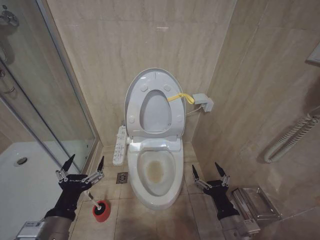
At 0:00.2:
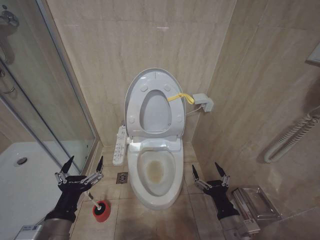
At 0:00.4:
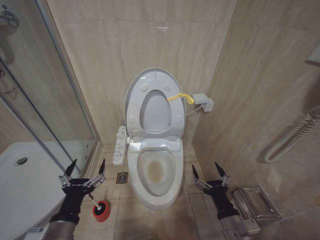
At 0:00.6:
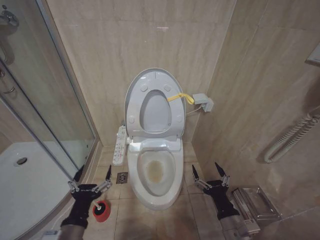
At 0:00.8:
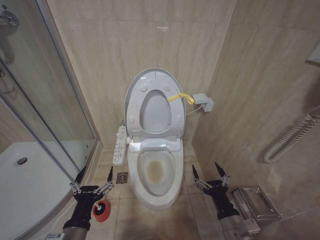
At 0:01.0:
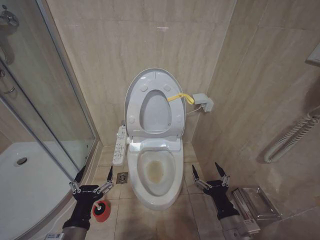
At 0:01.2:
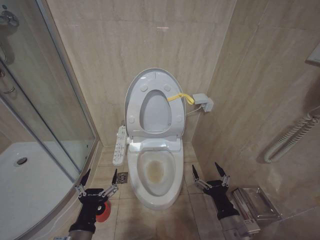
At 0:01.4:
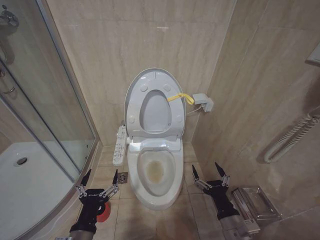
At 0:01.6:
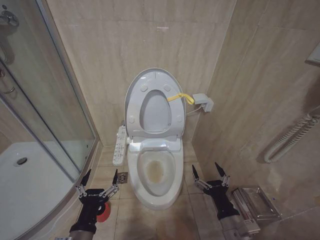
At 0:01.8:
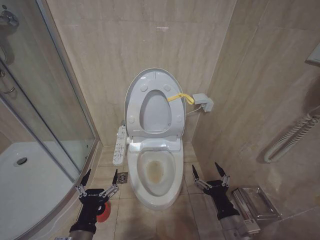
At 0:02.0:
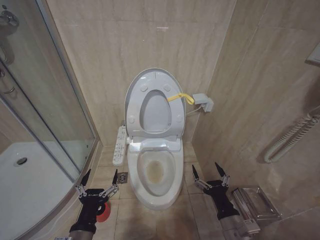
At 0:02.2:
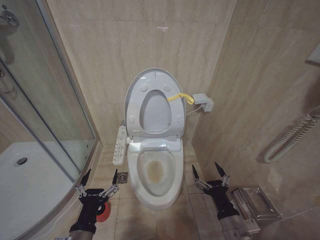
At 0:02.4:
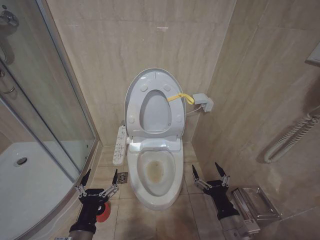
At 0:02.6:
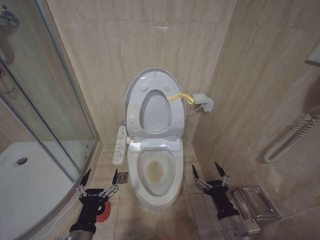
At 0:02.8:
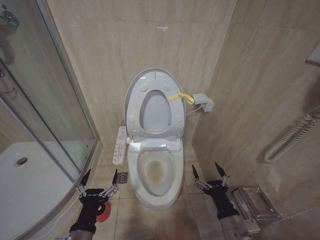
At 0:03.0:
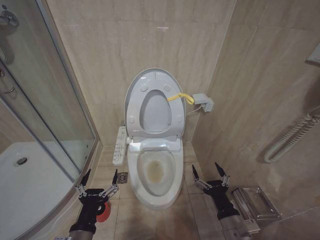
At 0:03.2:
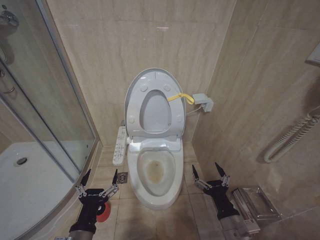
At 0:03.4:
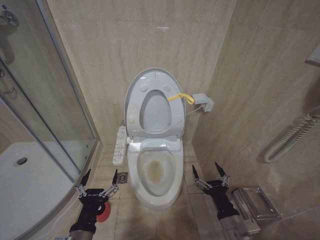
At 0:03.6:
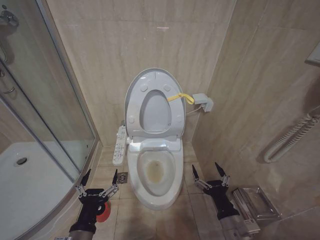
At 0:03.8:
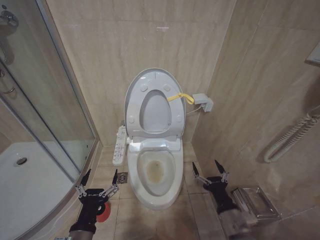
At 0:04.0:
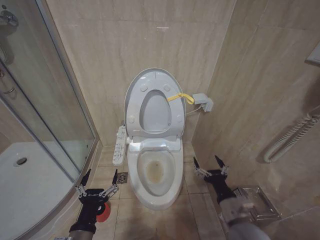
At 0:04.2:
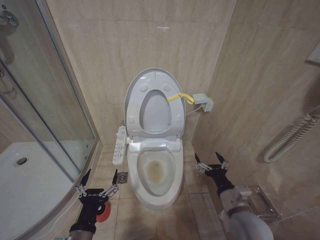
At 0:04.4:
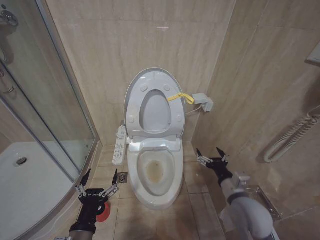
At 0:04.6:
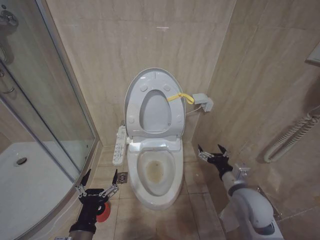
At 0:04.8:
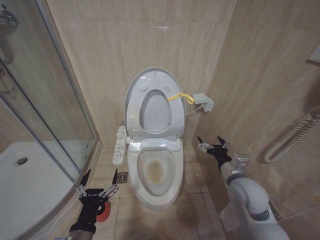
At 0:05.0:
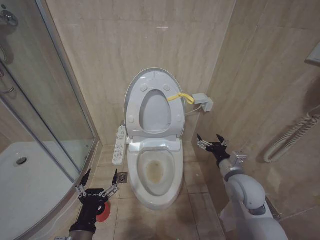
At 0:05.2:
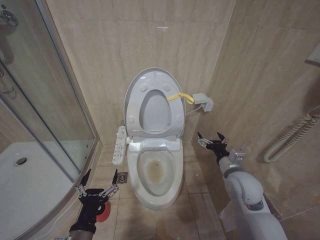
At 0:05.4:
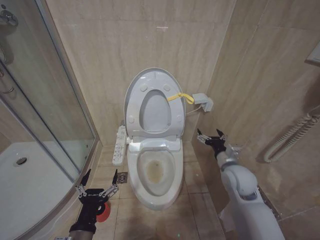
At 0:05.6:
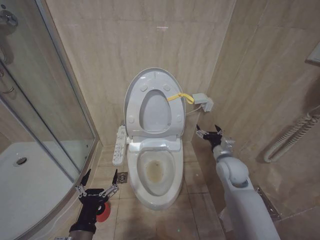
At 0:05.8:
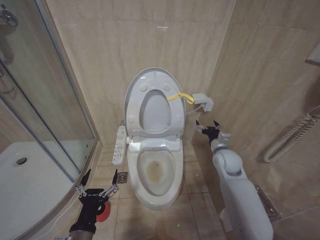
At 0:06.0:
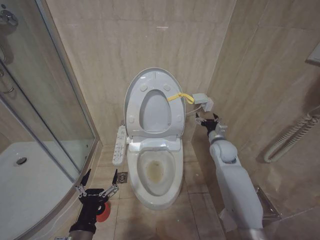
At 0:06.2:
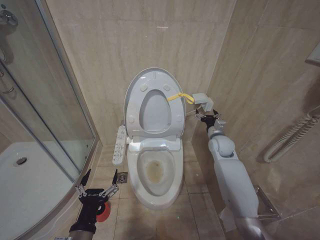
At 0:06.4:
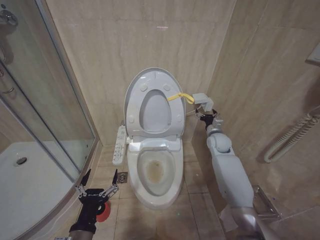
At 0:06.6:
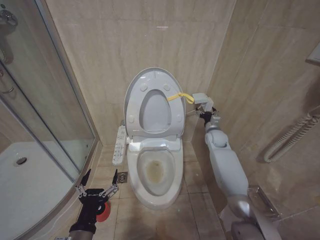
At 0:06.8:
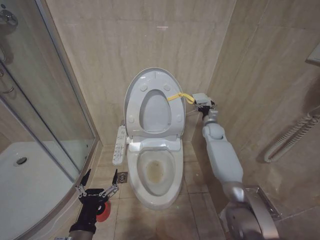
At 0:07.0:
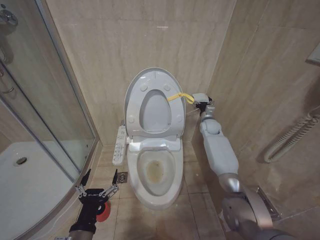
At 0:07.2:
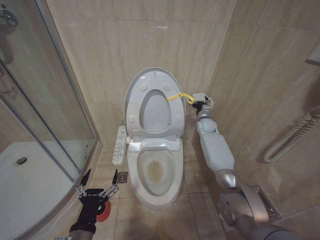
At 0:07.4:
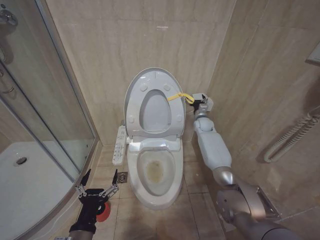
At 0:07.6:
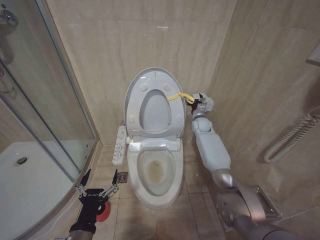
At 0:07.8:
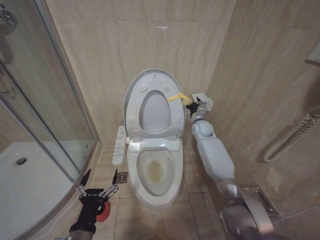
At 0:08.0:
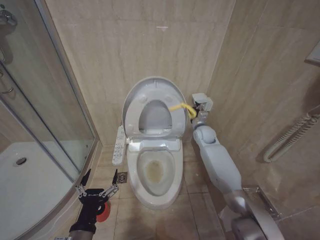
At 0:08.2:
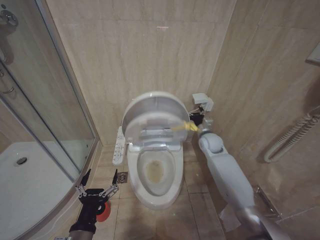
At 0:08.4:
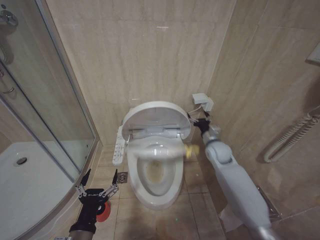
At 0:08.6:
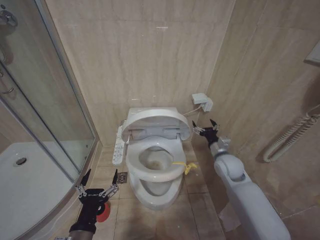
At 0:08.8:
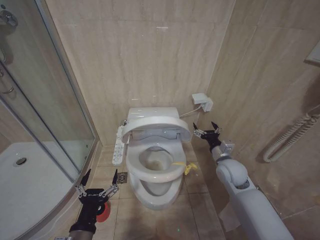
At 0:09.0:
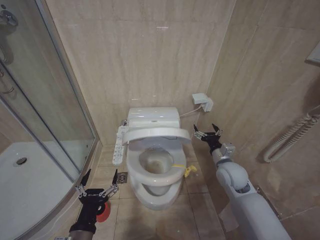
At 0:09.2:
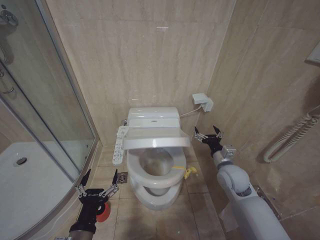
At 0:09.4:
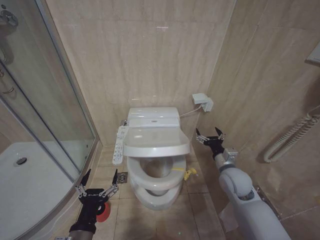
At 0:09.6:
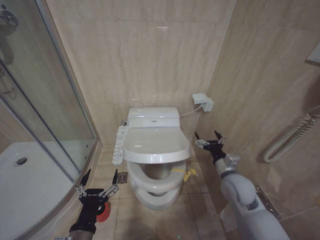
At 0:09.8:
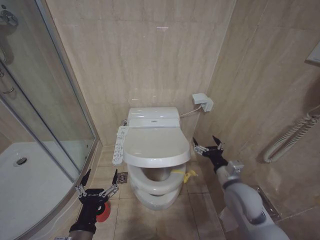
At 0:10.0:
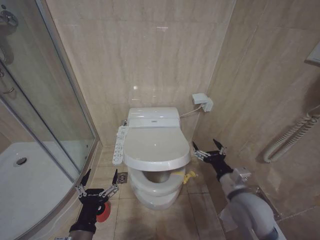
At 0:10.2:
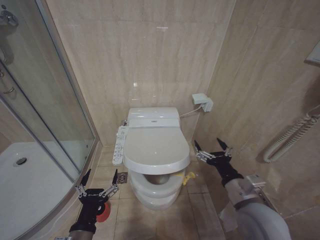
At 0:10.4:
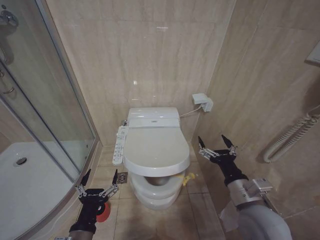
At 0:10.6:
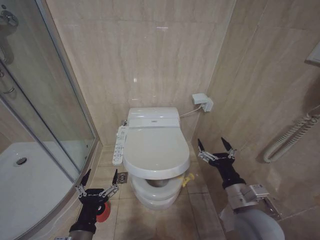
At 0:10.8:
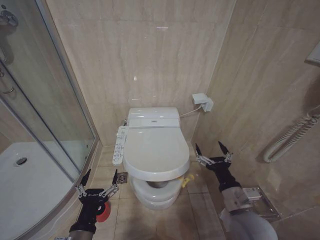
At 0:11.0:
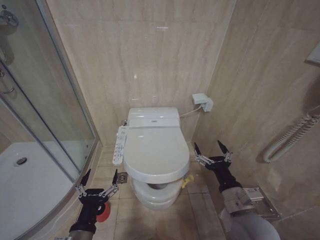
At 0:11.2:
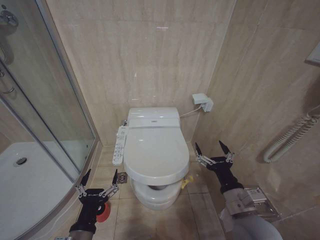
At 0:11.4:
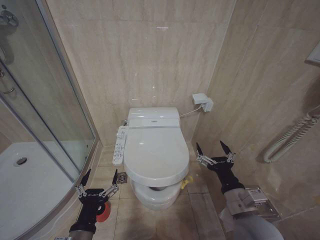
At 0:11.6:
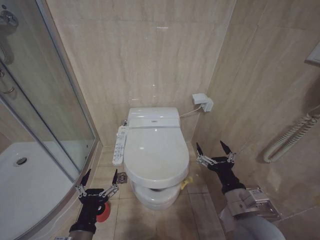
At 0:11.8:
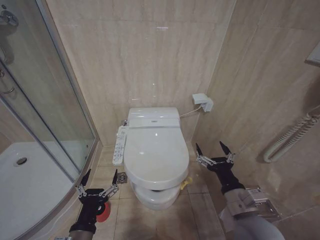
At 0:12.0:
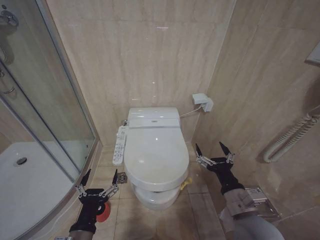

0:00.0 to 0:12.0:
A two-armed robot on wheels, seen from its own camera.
Task of the whole recording: Open the toilet lid, clean the toilet bowl with a toilet brush, close the toilet lid, and flush.
0:00.0 to 0:01.6: The left gripper travels downward by roughly 5 cm.
0:01.6 to 0:03.0: Both grippers stay put.
0:03.0 to 0:04.4: The right gripper is displaced forward by approximately 10 cm.
0:04.4 to 0:06.0: The right gripper shifts about 20 cm forward.
0:06.0 to 0:07.6: The right gripper heads forward, covering approximately 20 cm.
0:07.6 to 0:09.0: The right gripper moves backward, roughly 25 cm.
0:09.0 to 0:10.4: The right gripper goes roughly 15 cm backward.
0:10.4 to 0:12.0: The grippers move only a little.

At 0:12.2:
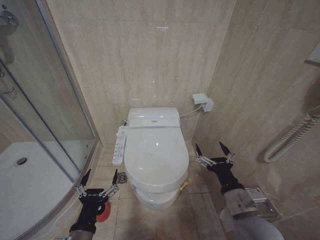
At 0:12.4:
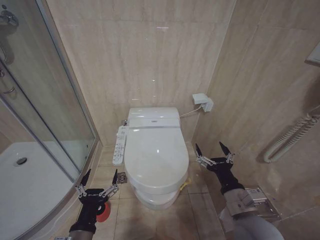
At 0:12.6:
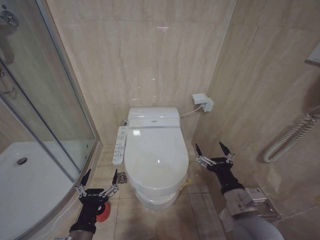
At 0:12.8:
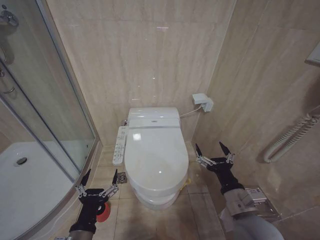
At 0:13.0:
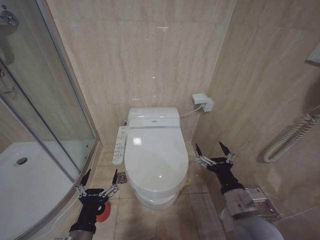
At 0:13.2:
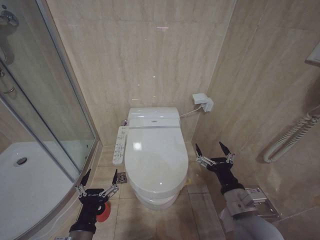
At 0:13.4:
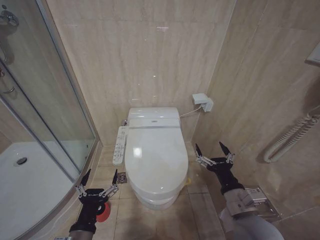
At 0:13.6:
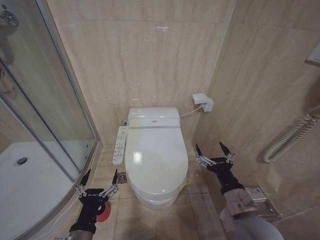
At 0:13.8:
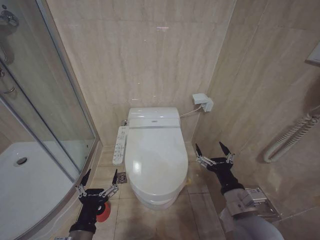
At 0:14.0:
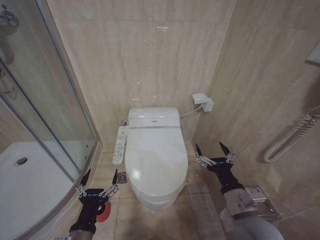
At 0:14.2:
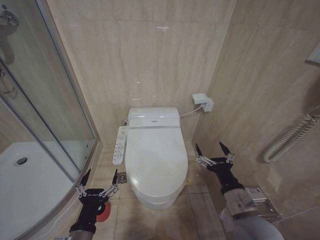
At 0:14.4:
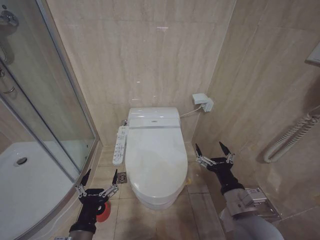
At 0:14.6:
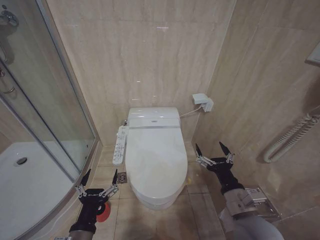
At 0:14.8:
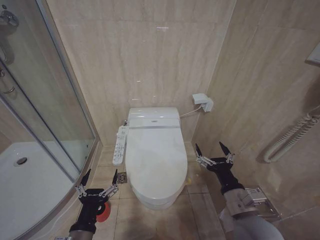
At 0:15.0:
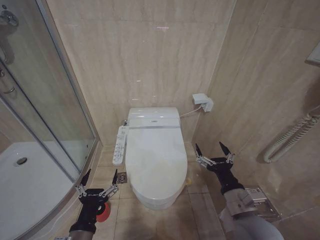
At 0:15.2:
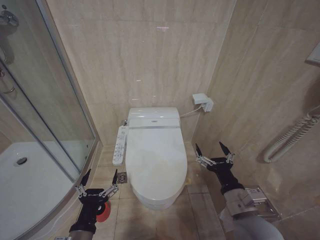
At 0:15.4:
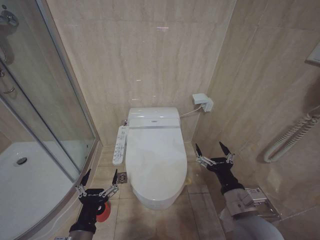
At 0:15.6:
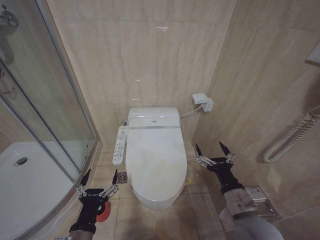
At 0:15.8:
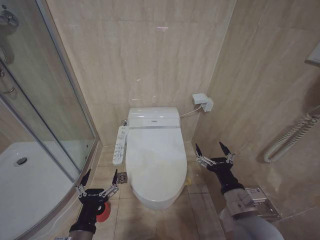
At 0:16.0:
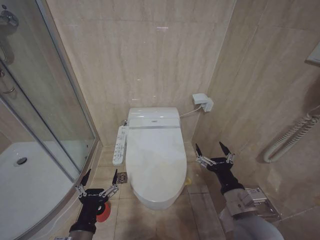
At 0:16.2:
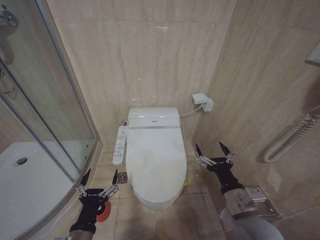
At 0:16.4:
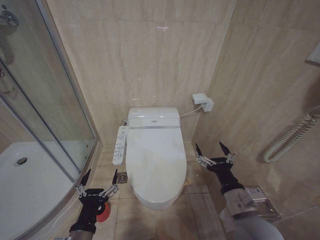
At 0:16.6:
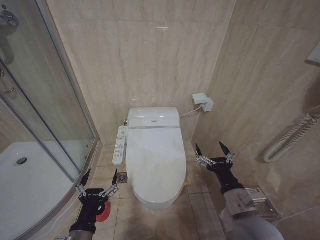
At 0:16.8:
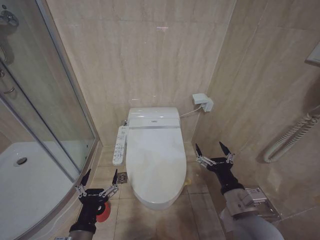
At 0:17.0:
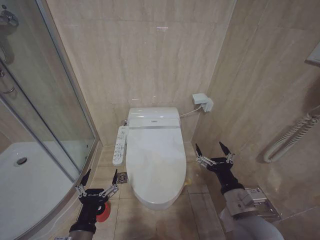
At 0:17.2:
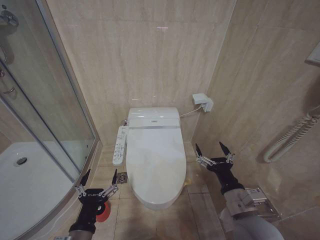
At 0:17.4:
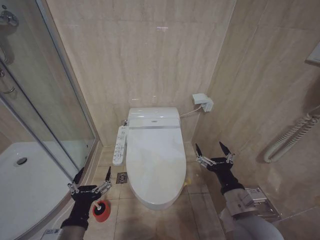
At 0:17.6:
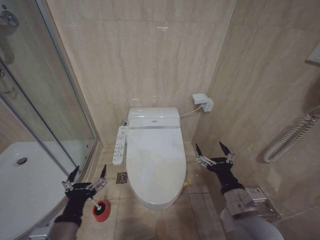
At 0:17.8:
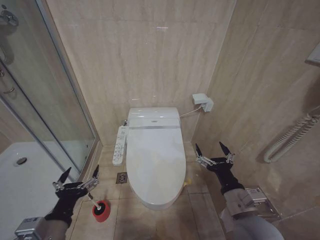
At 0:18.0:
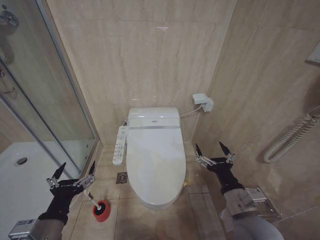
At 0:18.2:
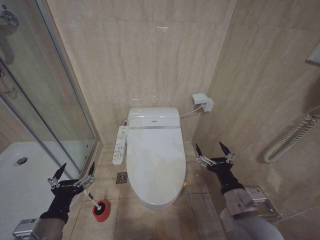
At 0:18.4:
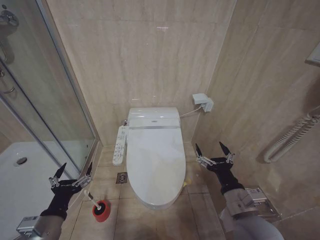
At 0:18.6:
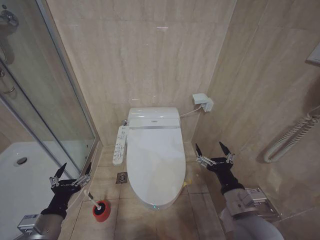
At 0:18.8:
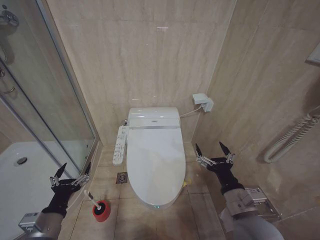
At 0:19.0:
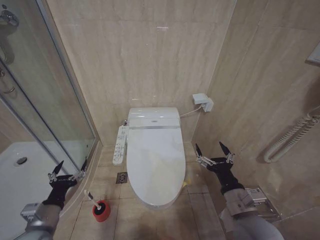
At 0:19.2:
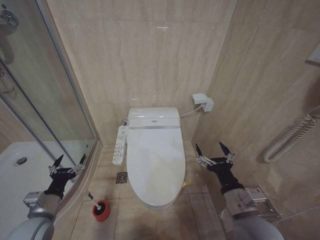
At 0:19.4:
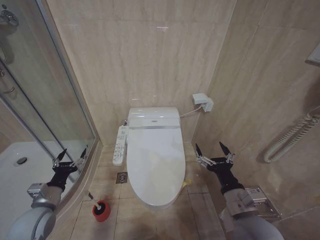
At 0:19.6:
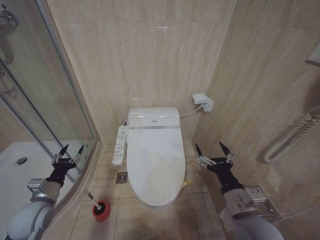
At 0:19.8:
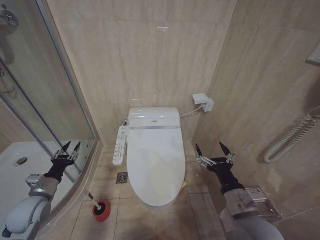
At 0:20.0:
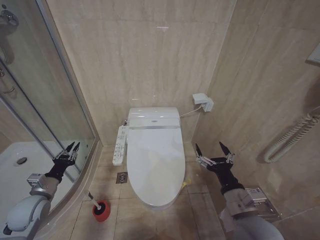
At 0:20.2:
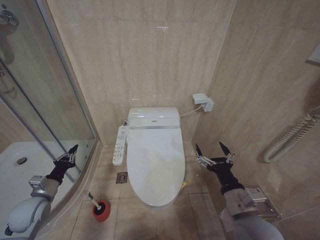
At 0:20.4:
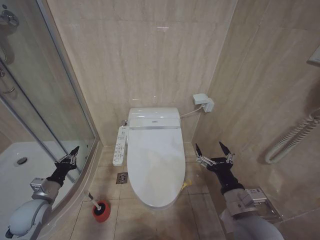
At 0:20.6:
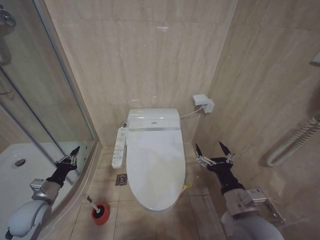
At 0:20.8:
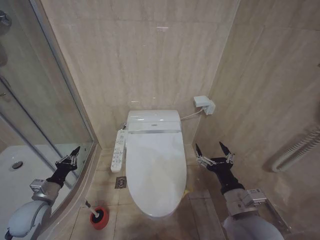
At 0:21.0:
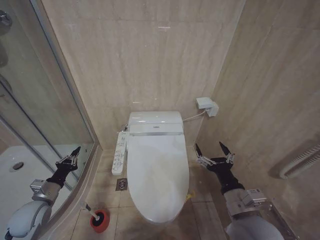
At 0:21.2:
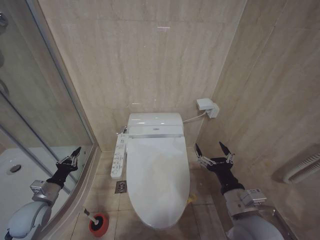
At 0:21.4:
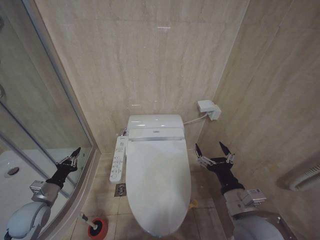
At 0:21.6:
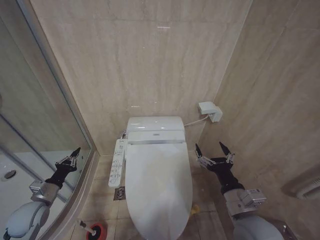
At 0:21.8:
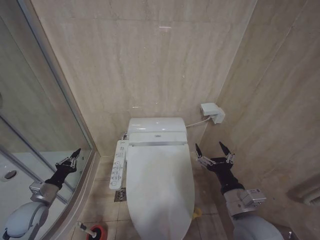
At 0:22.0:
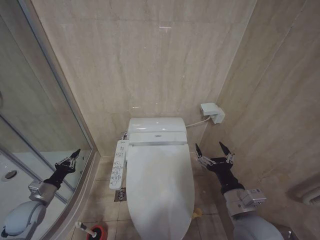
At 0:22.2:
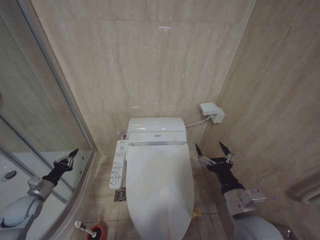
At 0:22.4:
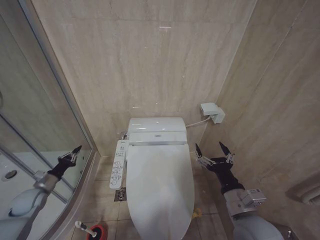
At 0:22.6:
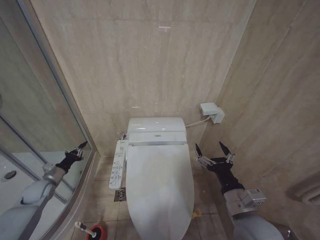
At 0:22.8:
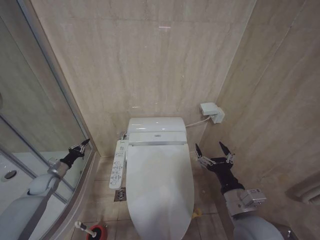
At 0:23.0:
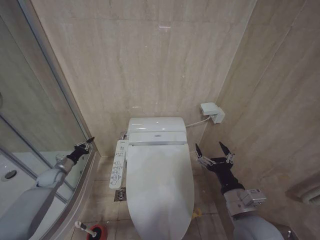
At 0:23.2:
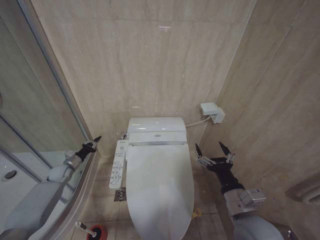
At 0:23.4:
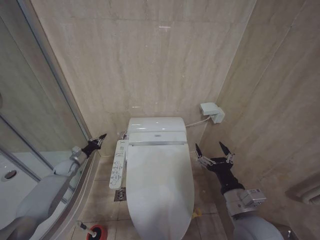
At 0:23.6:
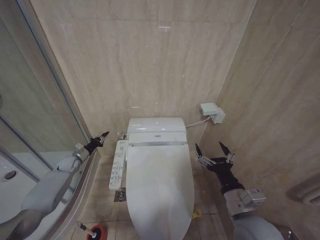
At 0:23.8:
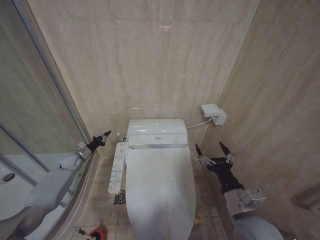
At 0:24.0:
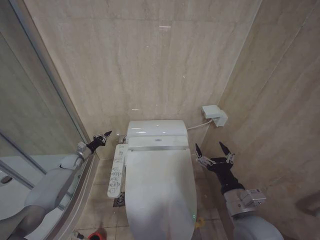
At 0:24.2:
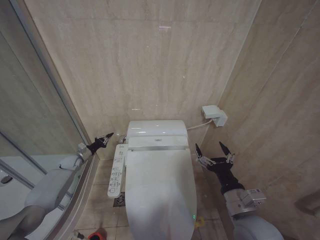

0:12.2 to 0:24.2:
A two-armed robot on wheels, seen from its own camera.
Task of the whole recording: Open the toilet lid, clean the toilet bowl with a toilet brush, close the toilet lid, and flush.
0:12.2 to 0:16.6: Neither gripper changes place.
0:16.6 to 0:18.2: The left gripper heads to the left and upward, covering some 10 cm.
0:18.2 to 0:19.8: The left gripper travels forward, to the left and downward by some 20 cm, and closes up.
0:19.8 to 0:21.2: The left gripper closes.
0:21.2 to 0:22.6: The left gripper travels forward and to the left by about 10 cm.
0:22.6 to 0:24.2: The left gripper goes roughly 15 cm forward.
